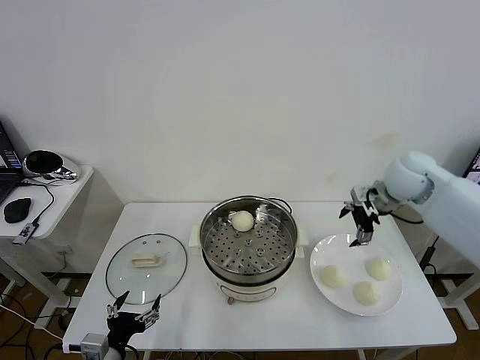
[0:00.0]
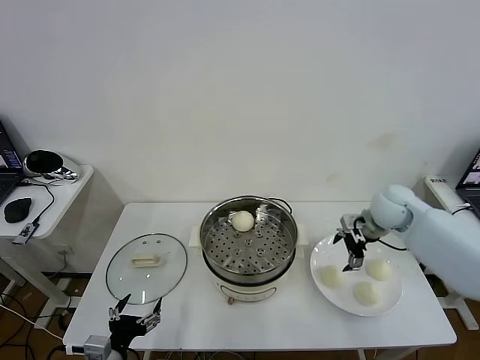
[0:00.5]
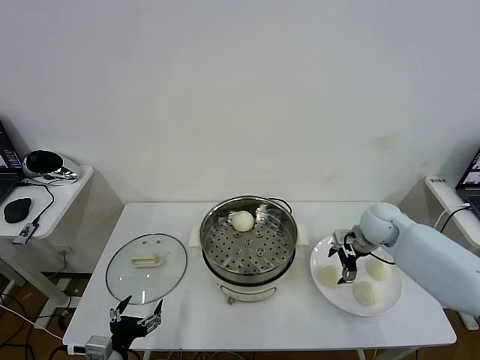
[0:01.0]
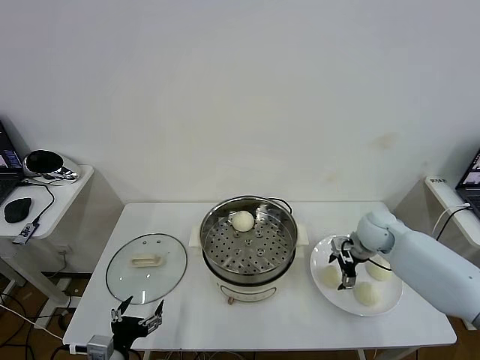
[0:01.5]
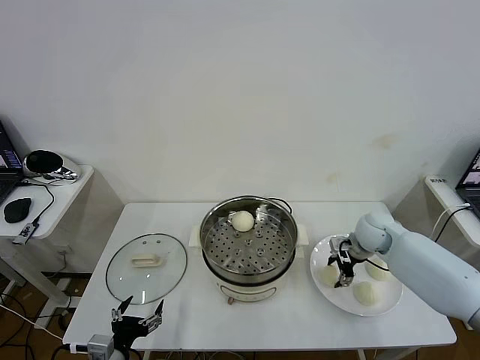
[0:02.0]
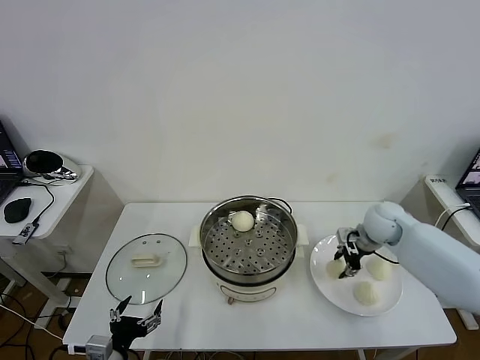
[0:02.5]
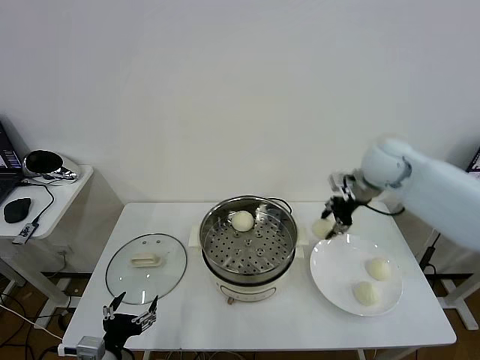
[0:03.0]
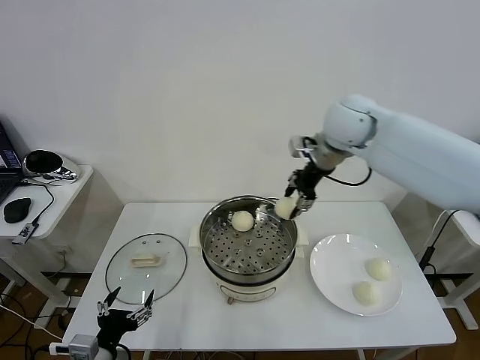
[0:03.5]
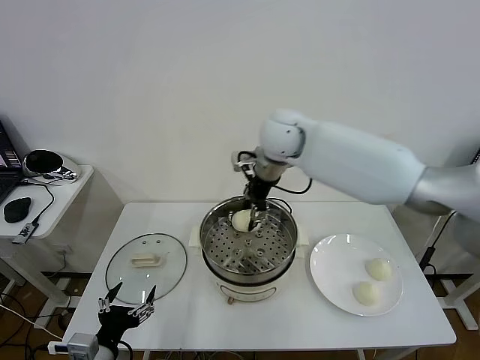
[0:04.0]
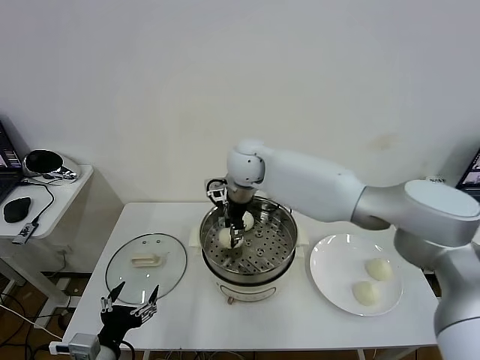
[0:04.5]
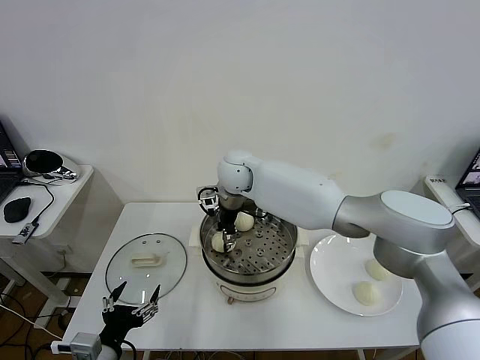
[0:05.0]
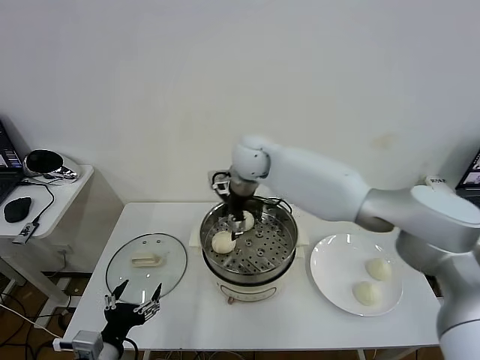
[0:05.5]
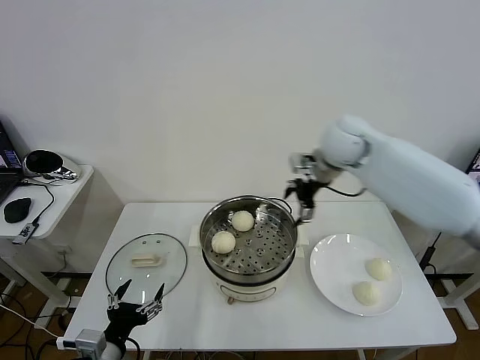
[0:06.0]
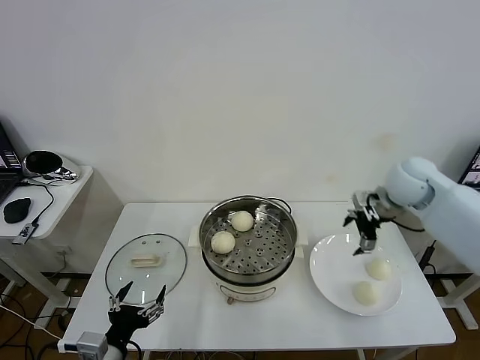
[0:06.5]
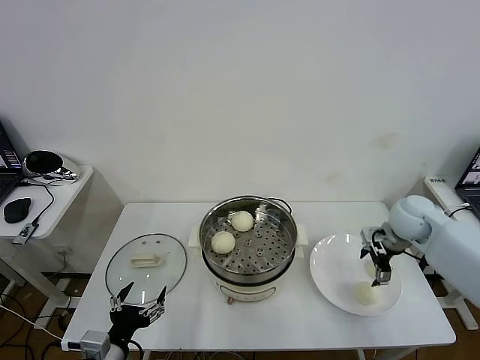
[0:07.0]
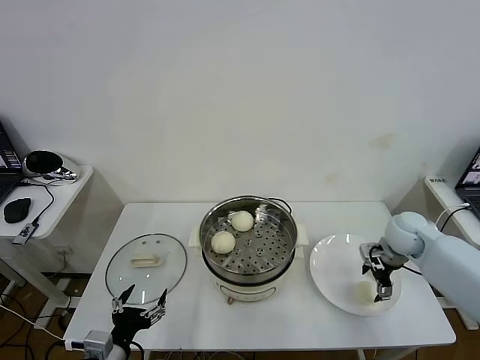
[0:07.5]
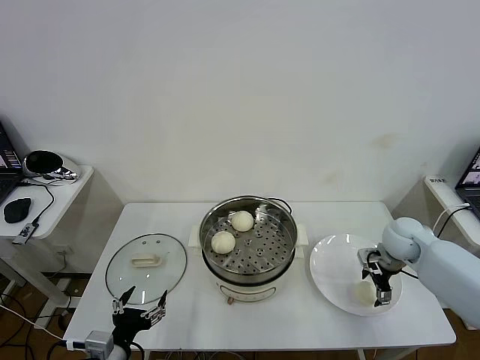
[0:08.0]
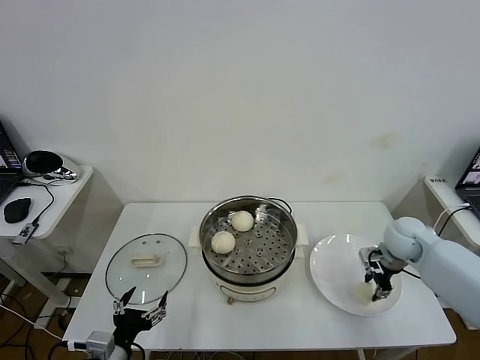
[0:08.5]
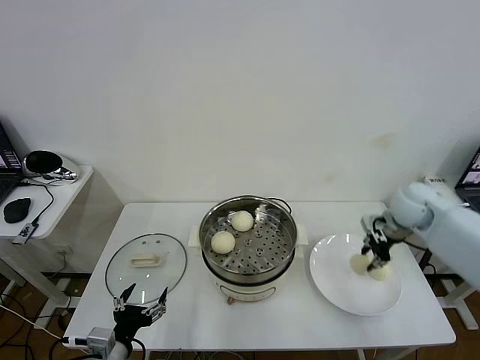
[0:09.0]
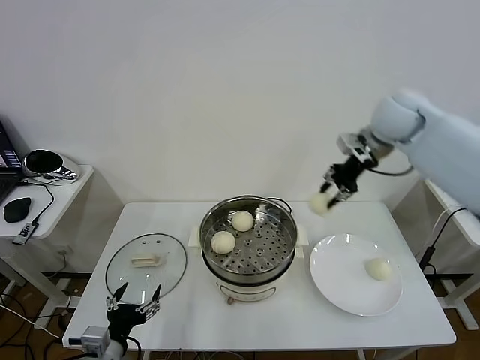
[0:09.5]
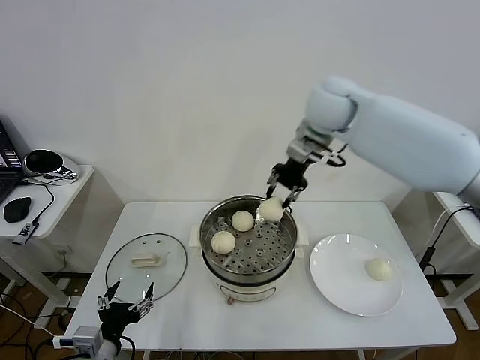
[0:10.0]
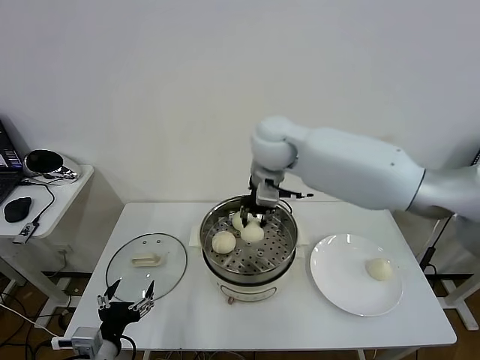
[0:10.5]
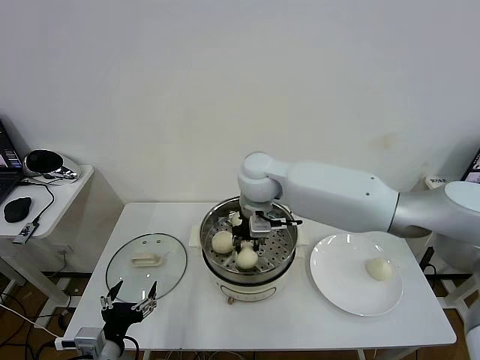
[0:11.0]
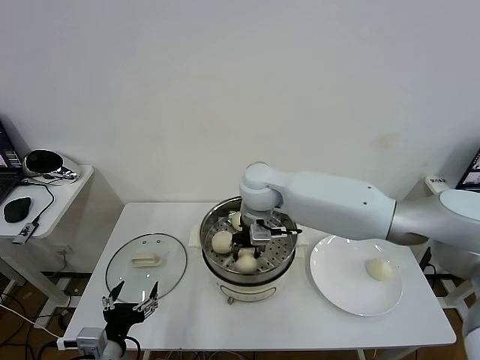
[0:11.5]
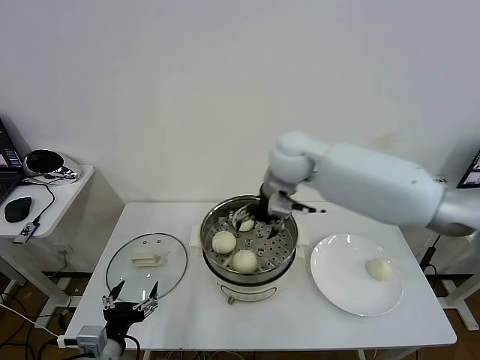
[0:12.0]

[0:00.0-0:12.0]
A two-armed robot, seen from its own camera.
Task of the whole recording: take steamed baozi put them in steamer then cover it.
Step, 0:00.0 to 0:02.0: Grasp the baozi in the plate with right gripper.
Step, 0:02.5 to 0:05.0: Place the baozi on the steamer with right gripper.
Step, 0:05.5 to 0:08.5: Grasp the baozi in the plate with right gripper.
Step, 0:09.0 to 0:11.5: Place the baozi on the steamer with right gripper.
0:00.0 to 0:02.0: The right gripper goes about 15 cm downward, and closes its fingers.
0:02.0 to 0:04.0: The left gripper shifts some 5 cm upward, while the right gripper is displaced to the left and upward by some 35 cm.
0:04.0 to 0:06.0: The right gripper heads to the right, covering about 20 cm, and opens.
0:06.0 to 0:08.0: The right gripper shifts roughly 25 cm downward and to the right.
0:08.0 to 0:10.0: The right gripper travels upward and to the left by roughly 35 cm, and closes its fingers.
0:10.0 to 0:12.0: The right gripper heads downward, covering some 5 cm, and opens up.

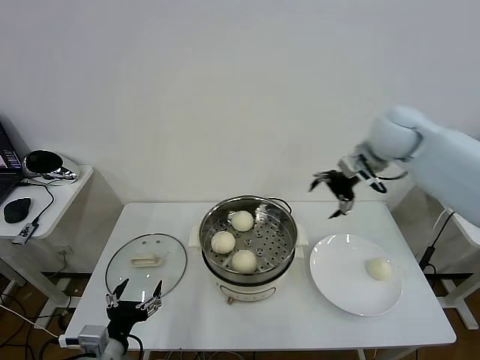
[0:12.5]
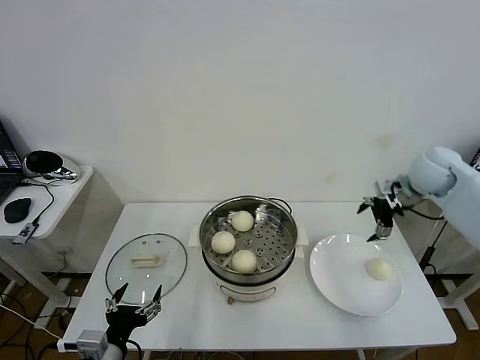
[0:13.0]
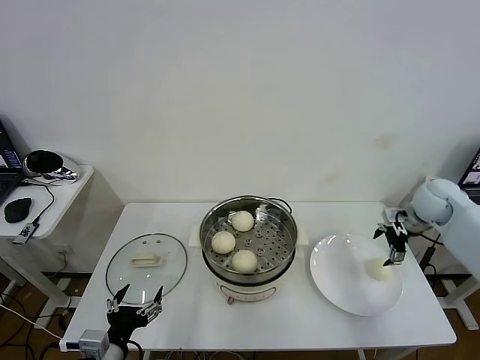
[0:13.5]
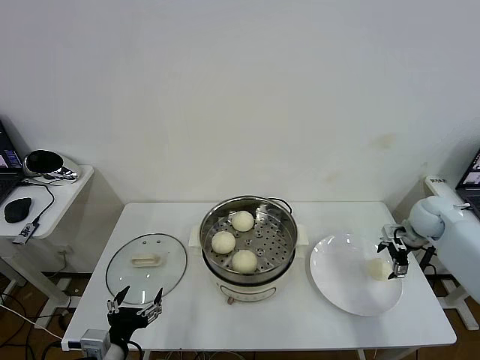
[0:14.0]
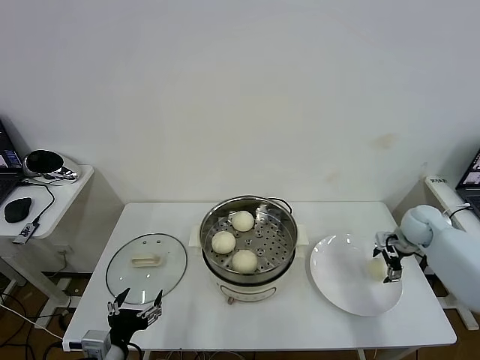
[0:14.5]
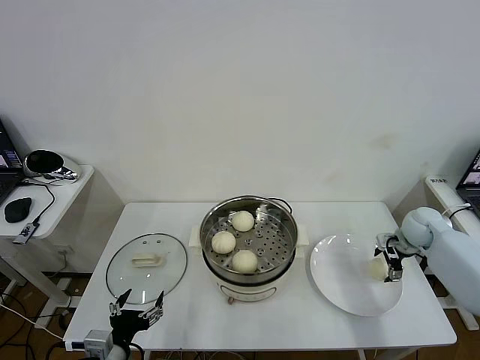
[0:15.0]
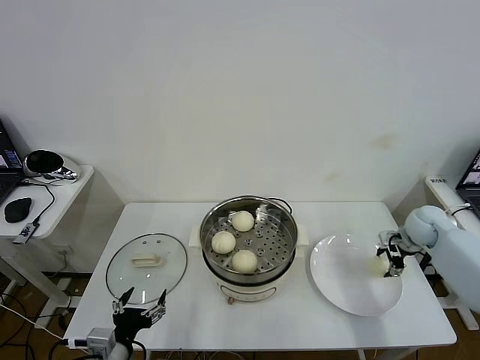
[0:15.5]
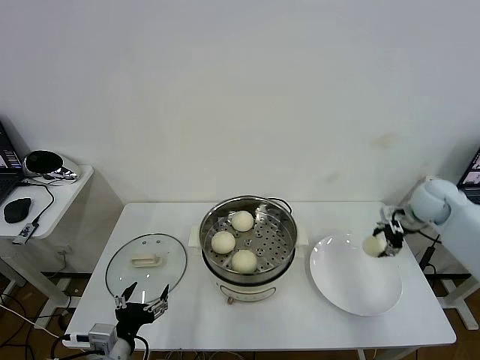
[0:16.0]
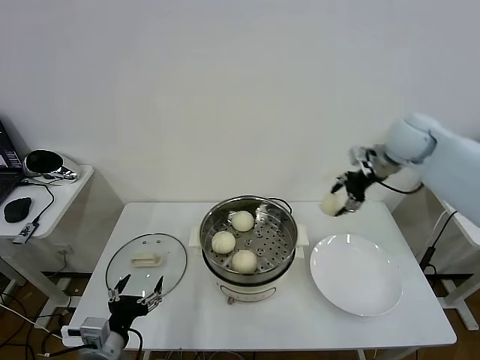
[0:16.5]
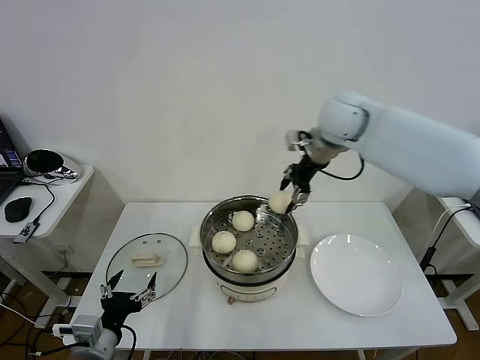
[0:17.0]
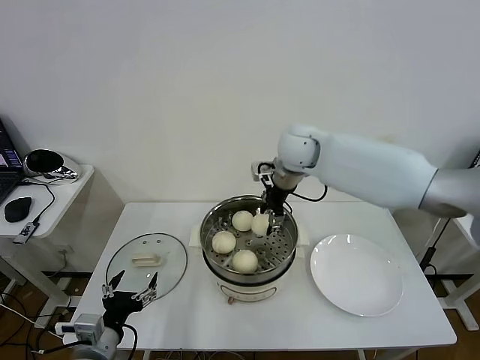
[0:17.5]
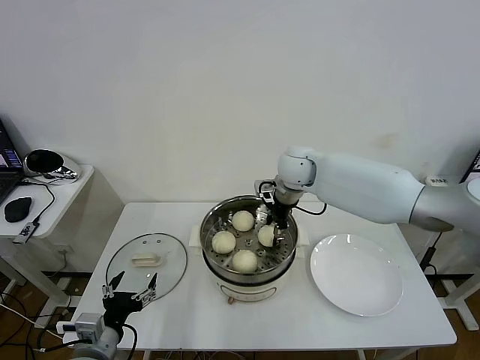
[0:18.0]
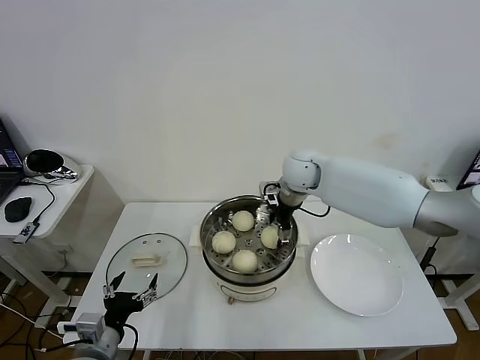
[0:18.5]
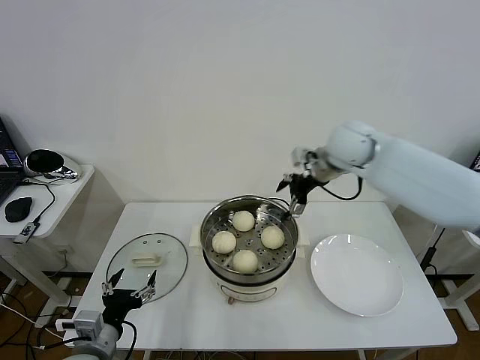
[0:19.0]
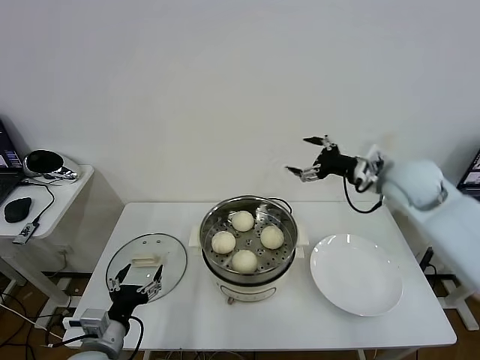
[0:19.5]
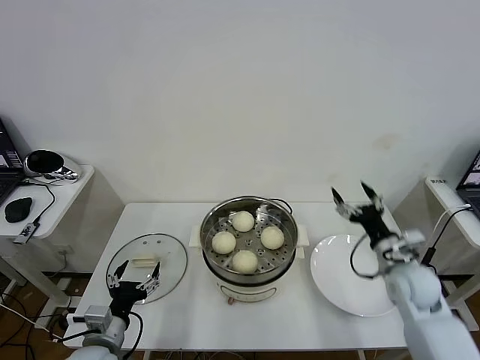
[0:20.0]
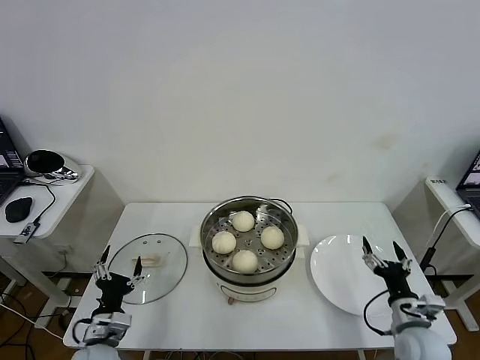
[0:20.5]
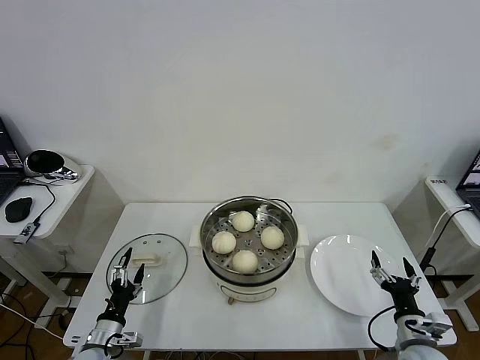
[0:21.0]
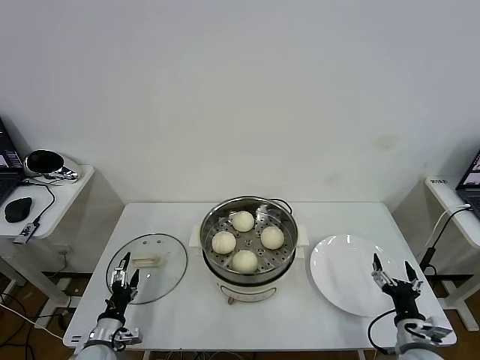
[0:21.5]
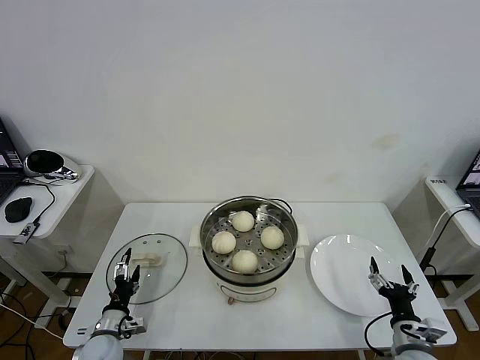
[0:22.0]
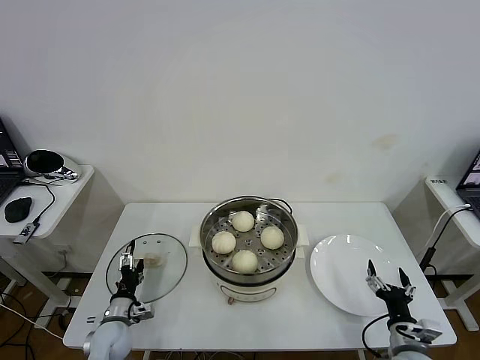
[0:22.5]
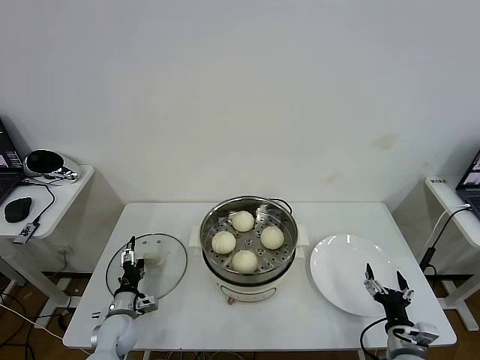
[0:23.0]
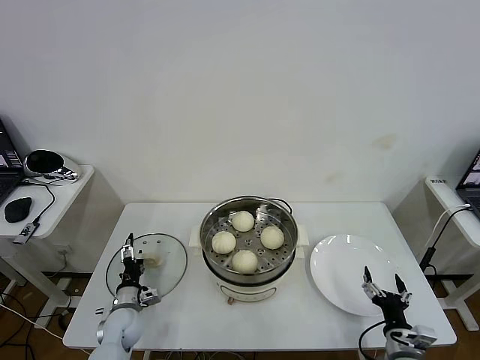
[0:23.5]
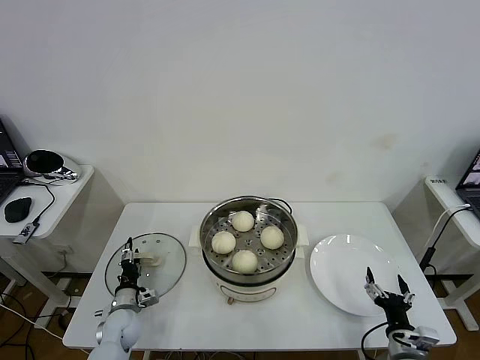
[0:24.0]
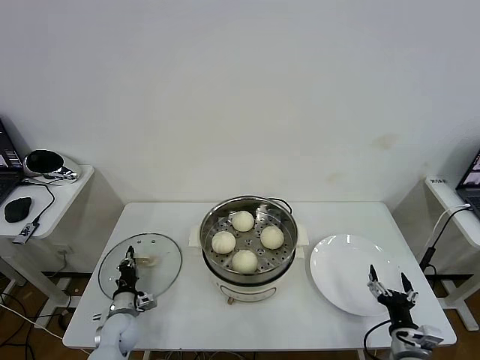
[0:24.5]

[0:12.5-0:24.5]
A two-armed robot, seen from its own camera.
Task of the whole recording: take steamed baozi put them in steamer then cover it.
Step, 0:12.5 to 0:15.5: Grasp the baozi in the plate with right gripper.
Step, 0:16.0 to 0:18.5: Place the baozi on the steamer with right gripper.
0:12.5 to 0:14.5: The right gripper travels downward and to the right by about 30 cm.
0:14.5 to 0:16.5: The right gripper is displaced upward and to the left by about 25 cm, and closes up.
0:16.5 to 0:18.5: The right gripper is displaced to the left and downward by approximately 20 cm, and opens up.
0:18.5 to 0:20.5: The right gripper heads backward, to the right and downward, covering approximately 50 cm. Meanwhile the left gripper shifts some 5 cm downward.
0:20.5 to 0:22.5: The left gripper moves downward and forward, some 10 cm. Meanwhile the right gripper ends up some 5 cm from where it was.
0:22.5 to 0:24.5: The left gripper closes.

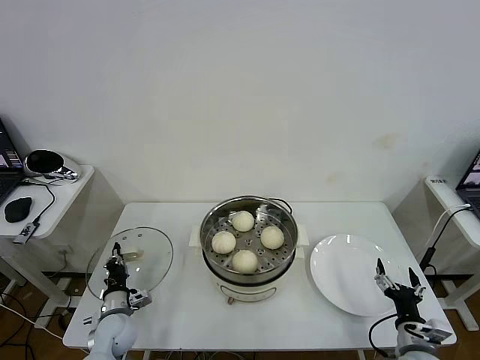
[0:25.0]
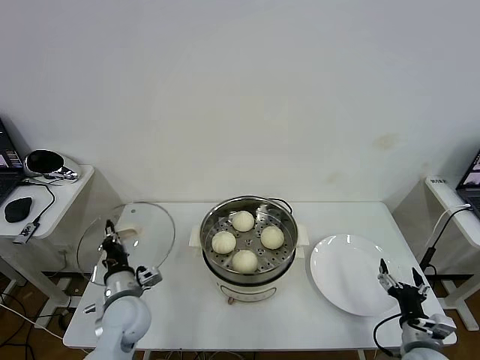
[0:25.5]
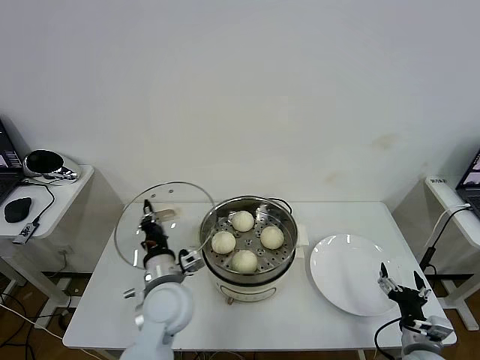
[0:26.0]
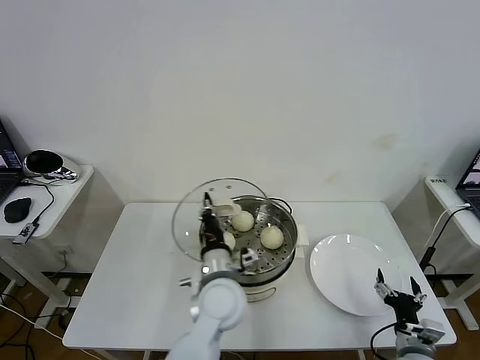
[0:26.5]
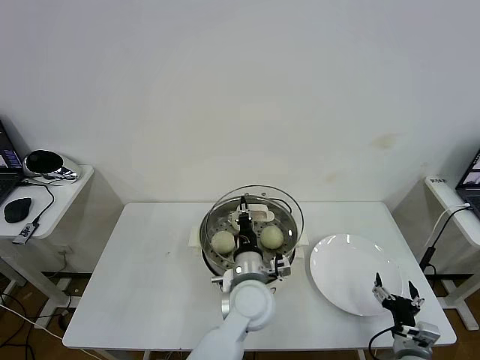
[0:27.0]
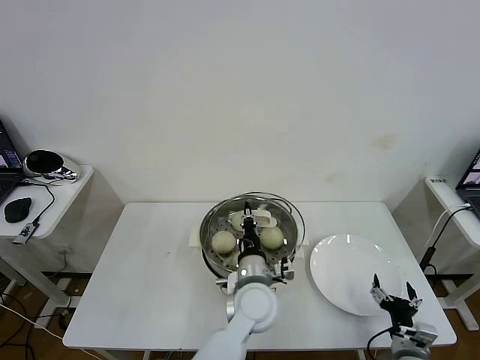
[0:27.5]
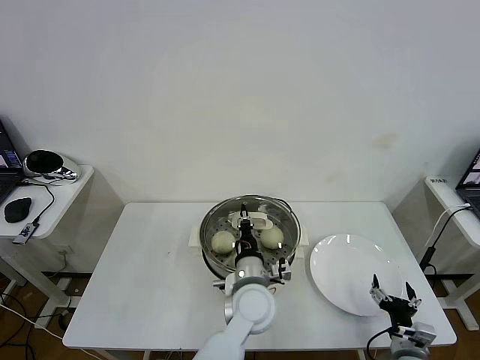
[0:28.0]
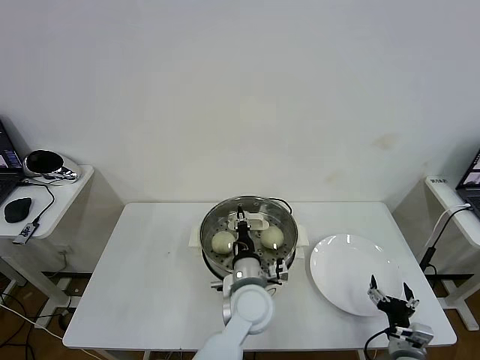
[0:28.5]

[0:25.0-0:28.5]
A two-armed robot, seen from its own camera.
Task of the whole recording: take steamed baozi put them in steamer then cover it.
0:25.0 to 0:27.0: The left gripper travels to the right and upward by some 40 cm.
0:27.0 to 0:28.5: There are only small adjustments of the grippers.
